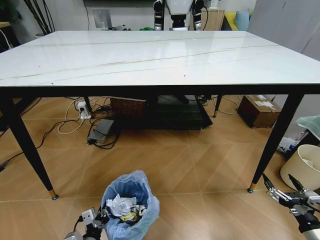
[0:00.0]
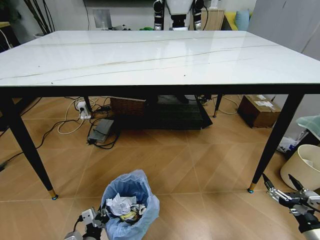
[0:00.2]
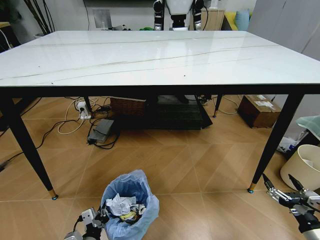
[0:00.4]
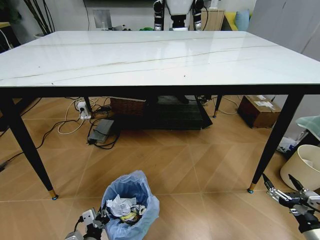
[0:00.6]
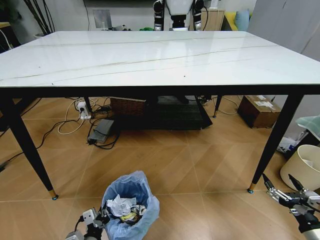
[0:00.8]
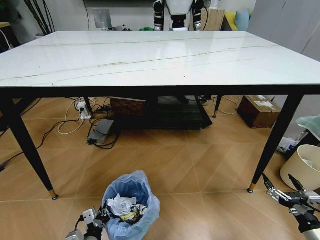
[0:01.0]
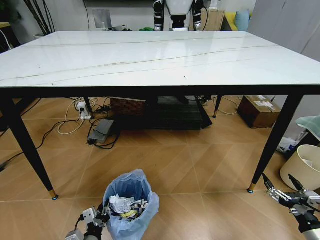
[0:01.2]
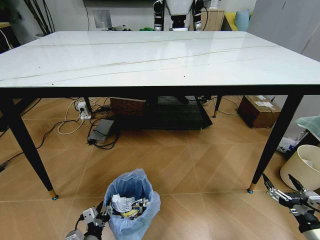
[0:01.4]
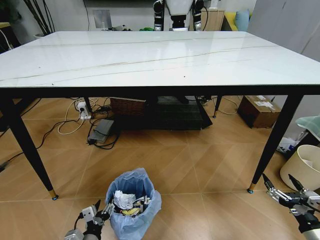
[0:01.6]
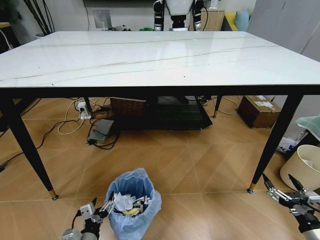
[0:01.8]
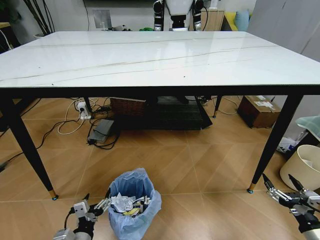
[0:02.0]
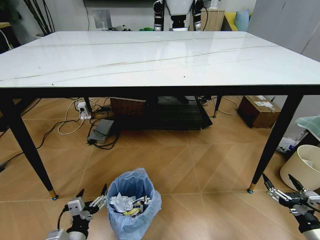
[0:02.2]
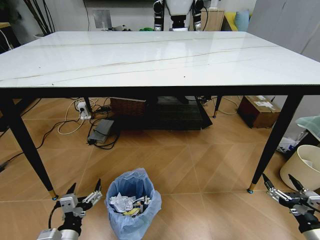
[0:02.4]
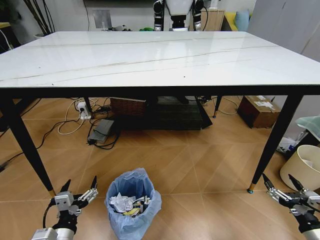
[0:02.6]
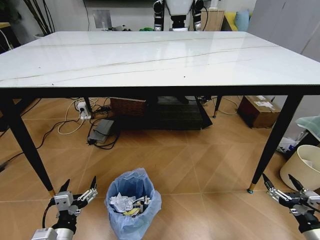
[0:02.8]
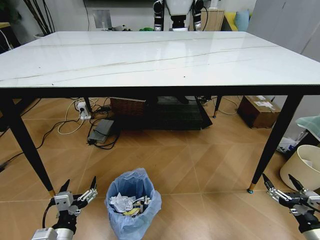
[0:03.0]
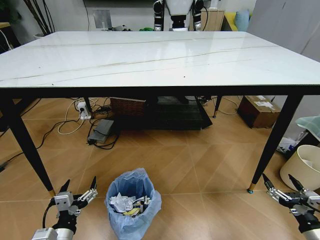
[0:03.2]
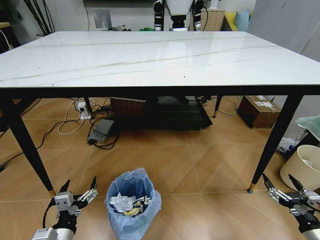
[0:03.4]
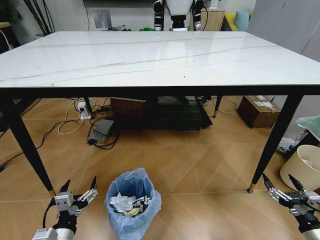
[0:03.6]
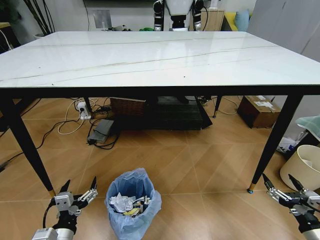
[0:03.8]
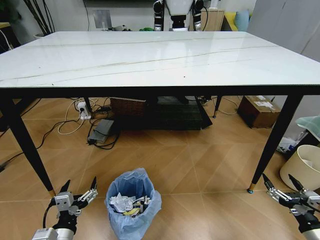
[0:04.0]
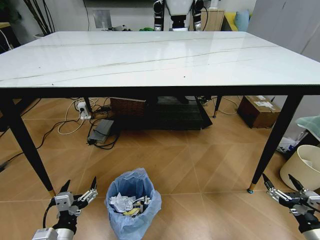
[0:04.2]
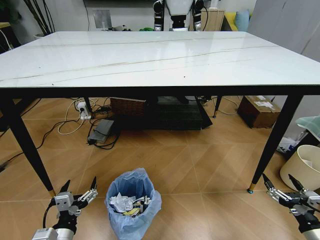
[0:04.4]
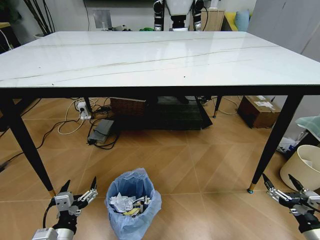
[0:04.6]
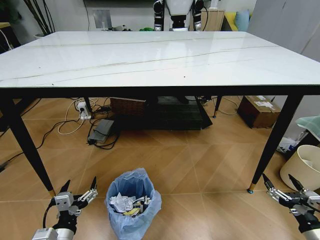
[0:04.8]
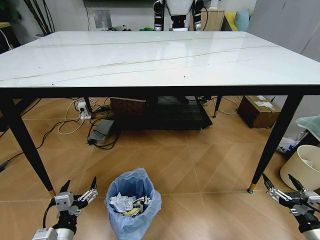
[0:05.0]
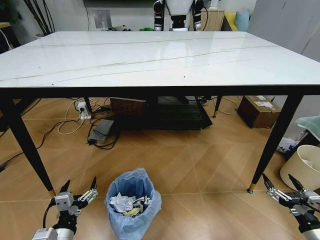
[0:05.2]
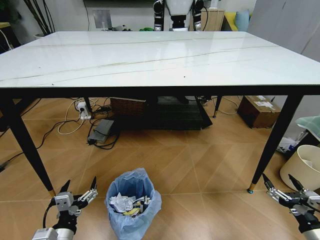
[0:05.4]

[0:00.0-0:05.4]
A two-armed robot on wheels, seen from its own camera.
Task of the whole recording: Pick up the trash bin and place the trash from the table into it.
0:00.0 to 0:01.4: The left gripper opens its fingers.
0:01.4 to 0:02.8: The left gripper goes some 10 cm upward, and opens its fingers.
0:02.8 to 0:05.4: The two grippers keep their place.

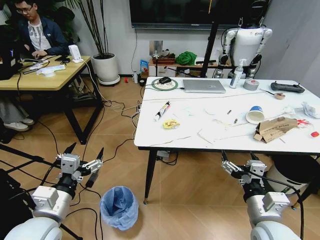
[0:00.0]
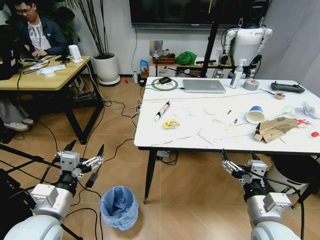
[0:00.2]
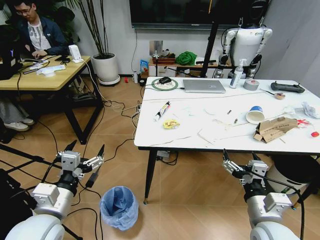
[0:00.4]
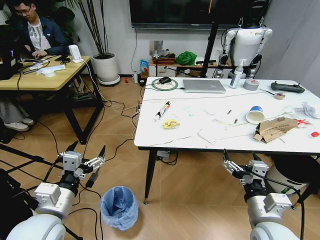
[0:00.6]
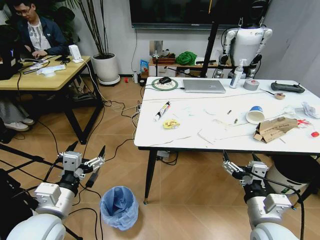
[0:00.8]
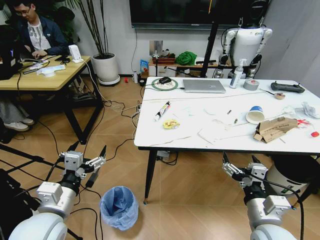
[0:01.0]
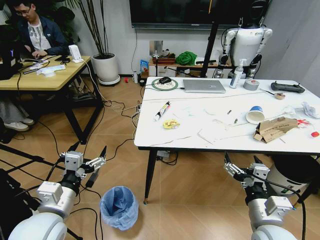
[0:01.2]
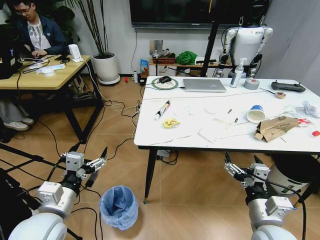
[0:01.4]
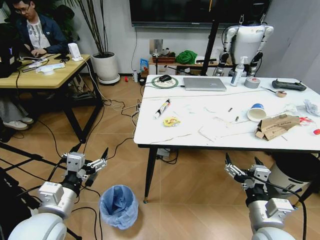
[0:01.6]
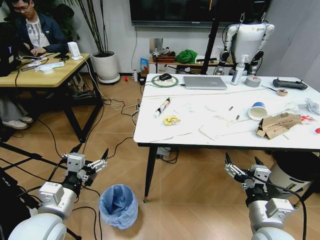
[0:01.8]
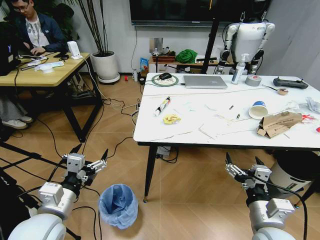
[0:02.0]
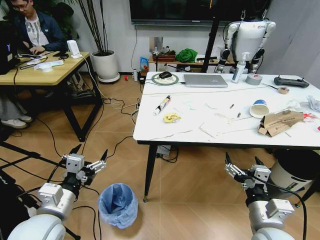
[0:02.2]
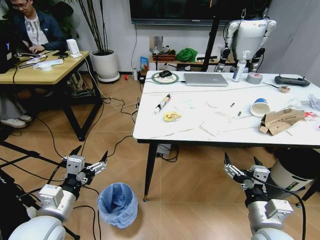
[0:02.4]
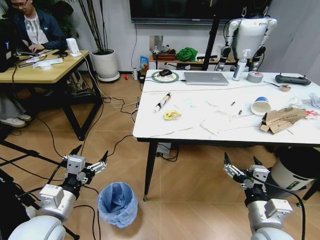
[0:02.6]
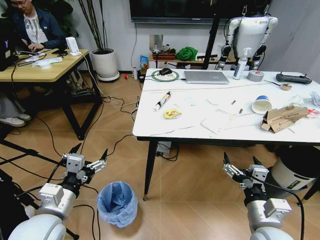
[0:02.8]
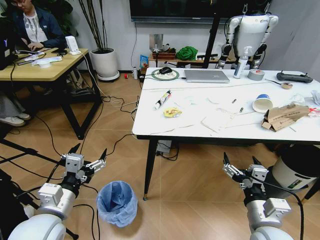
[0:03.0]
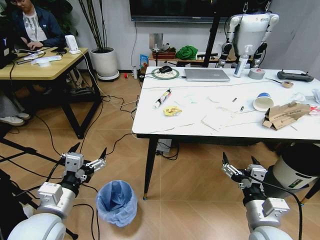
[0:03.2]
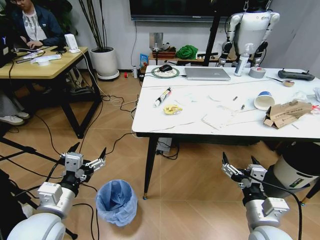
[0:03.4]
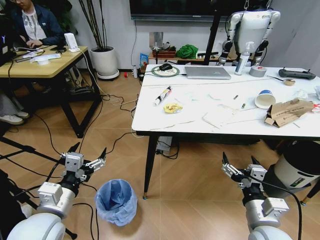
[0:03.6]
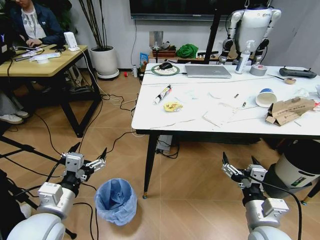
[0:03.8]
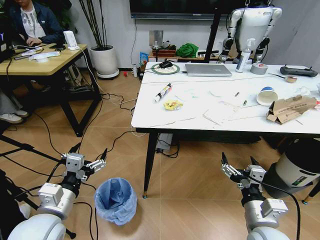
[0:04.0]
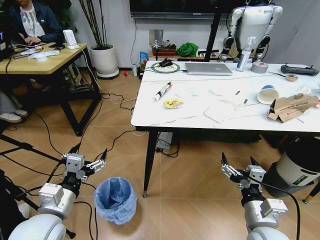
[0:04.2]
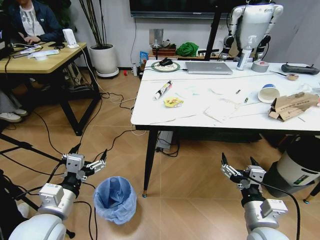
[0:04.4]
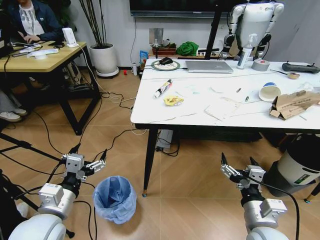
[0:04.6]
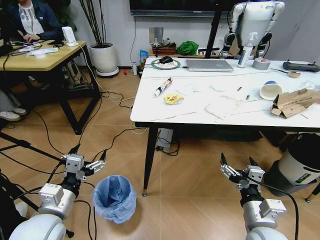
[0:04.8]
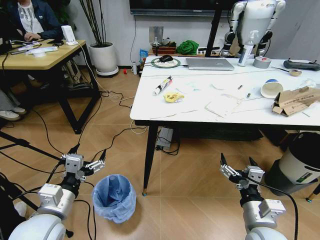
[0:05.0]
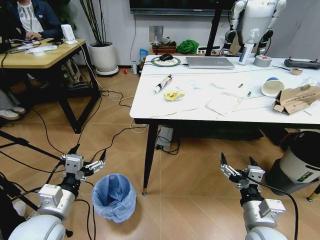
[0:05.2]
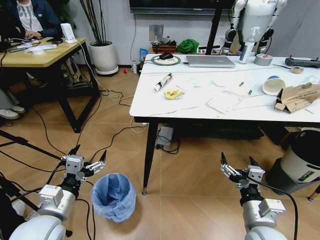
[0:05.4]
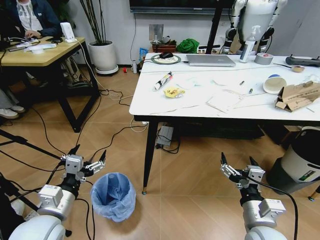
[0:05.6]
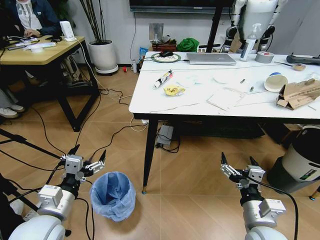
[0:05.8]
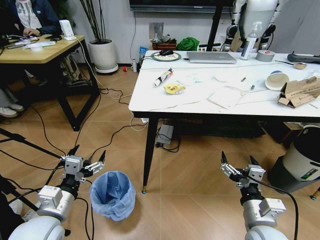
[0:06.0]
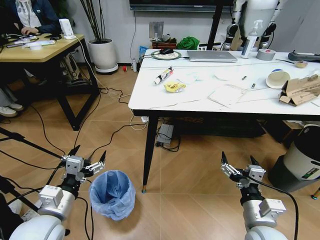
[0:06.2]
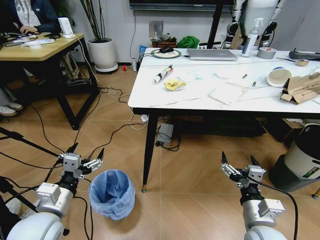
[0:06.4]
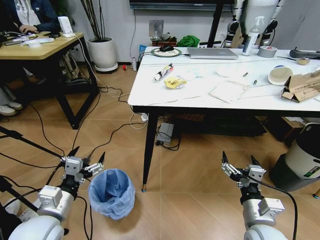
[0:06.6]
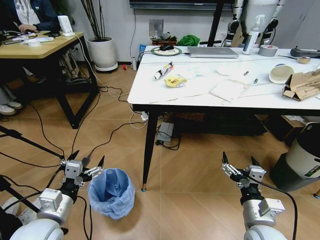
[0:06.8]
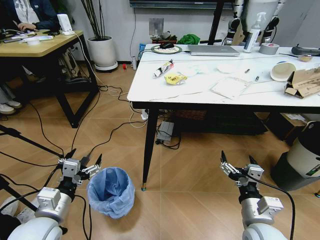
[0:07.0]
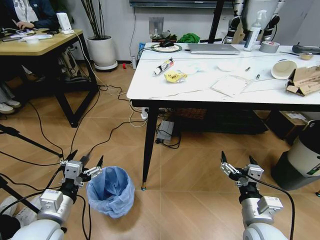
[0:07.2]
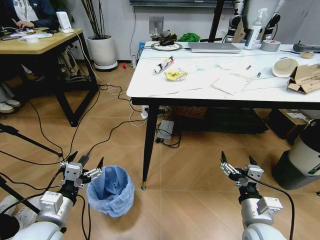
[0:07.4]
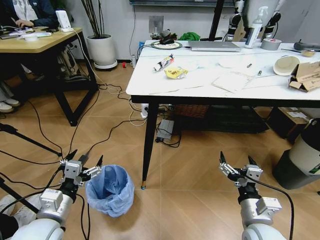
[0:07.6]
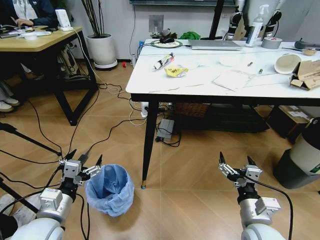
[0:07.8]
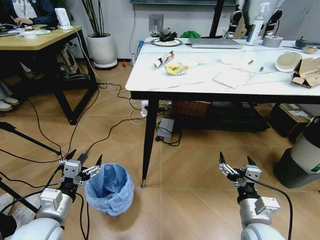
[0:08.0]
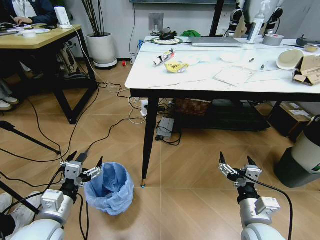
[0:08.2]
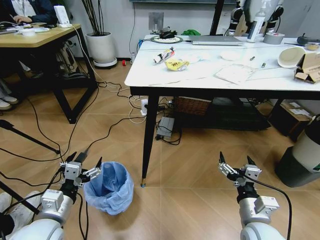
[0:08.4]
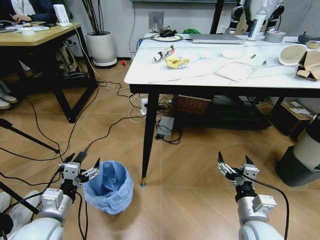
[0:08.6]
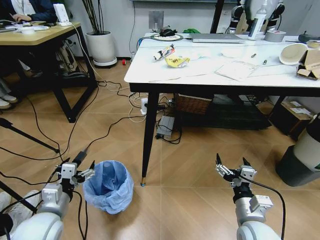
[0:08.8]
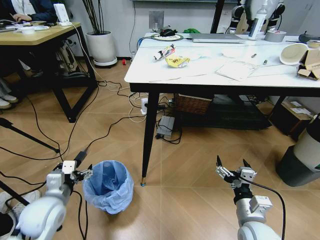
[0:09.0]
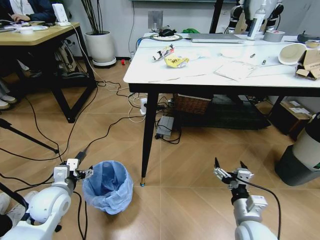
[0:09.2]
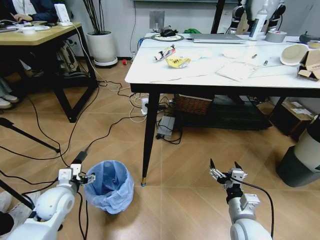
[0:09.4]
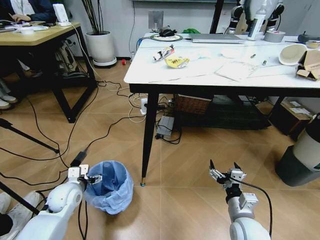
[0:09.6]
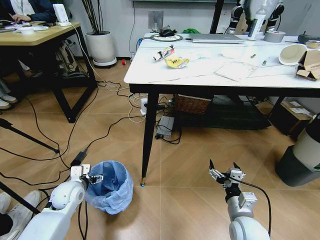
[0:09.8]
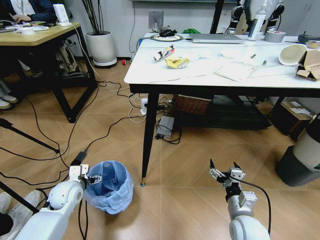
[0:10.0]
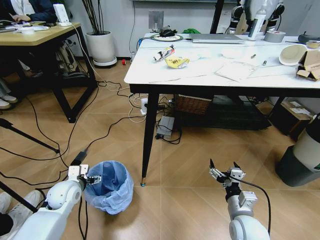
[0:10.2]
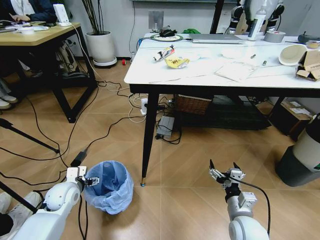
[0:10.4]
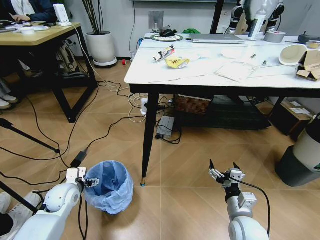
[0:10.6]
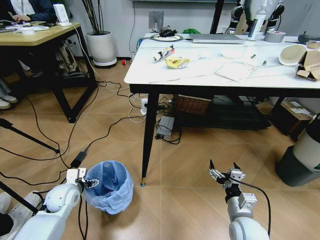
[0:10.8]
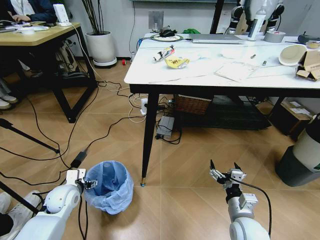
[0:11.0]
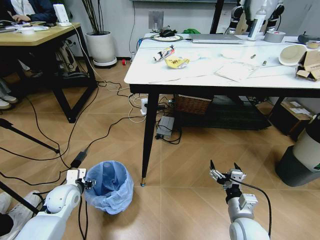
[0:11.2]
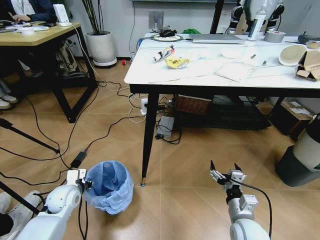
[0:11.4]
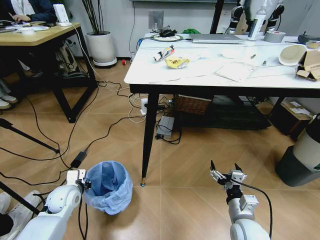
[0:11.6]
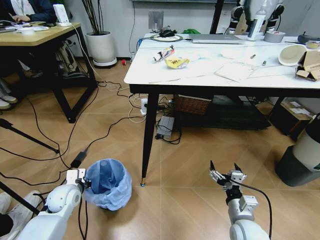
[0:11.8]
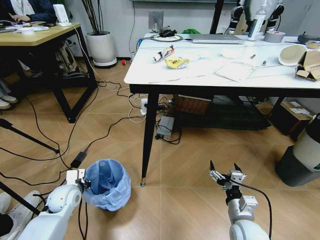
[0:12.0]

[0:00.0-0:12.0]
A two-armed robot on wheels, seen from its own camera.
Task of the whole recording: Pick up the trash bin and place the trash from the table into it.
0:07.6 to 0:09.0: The left gripper shifts some 5 cm forward.
0:09.0 to 0:10.4: The right gripper shifts by approximately 5 cm. The left gripper goes roughly 10 cm forward and downward.
0:10.4 to 0:12.0: The left gripper closes up.

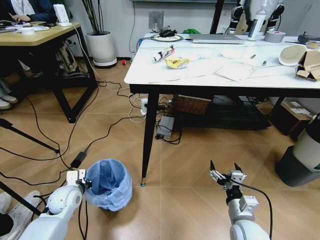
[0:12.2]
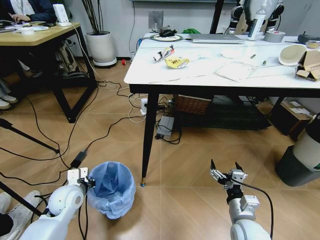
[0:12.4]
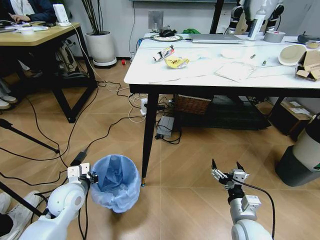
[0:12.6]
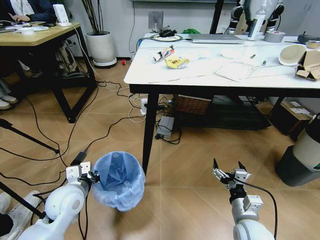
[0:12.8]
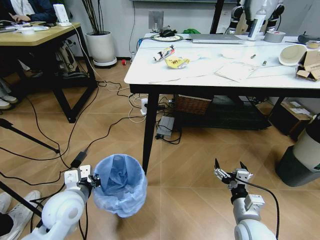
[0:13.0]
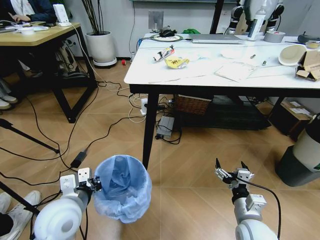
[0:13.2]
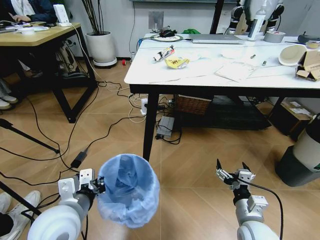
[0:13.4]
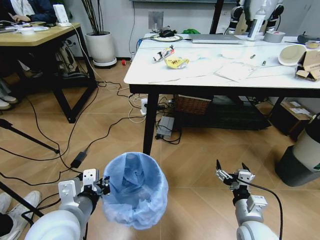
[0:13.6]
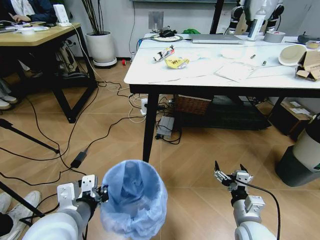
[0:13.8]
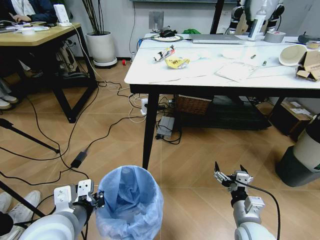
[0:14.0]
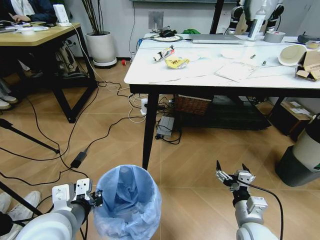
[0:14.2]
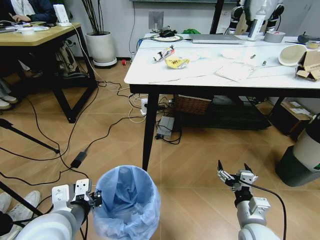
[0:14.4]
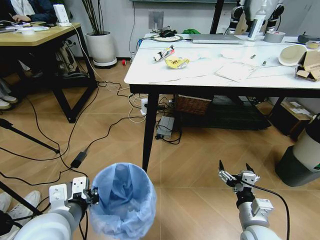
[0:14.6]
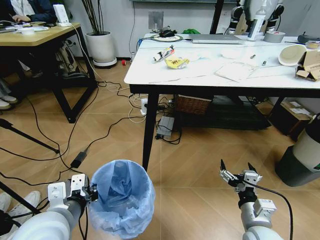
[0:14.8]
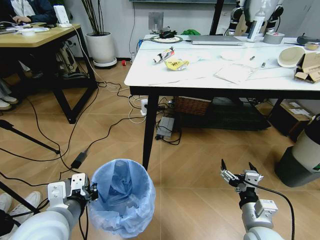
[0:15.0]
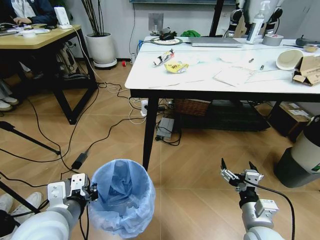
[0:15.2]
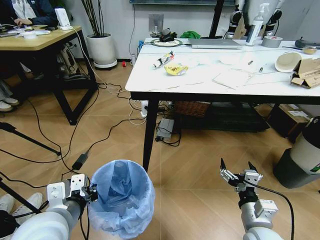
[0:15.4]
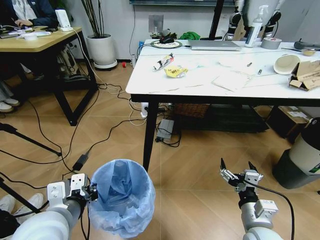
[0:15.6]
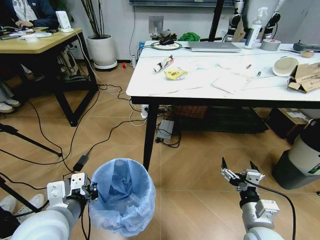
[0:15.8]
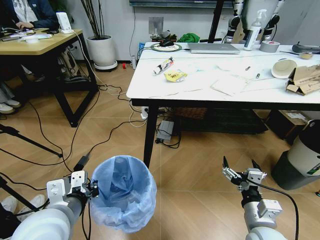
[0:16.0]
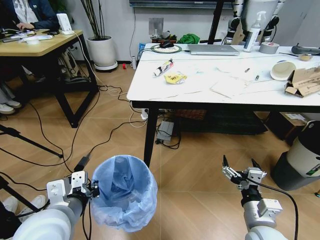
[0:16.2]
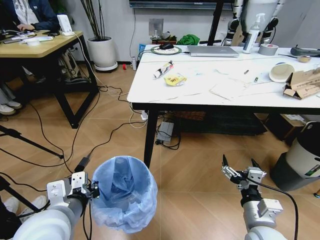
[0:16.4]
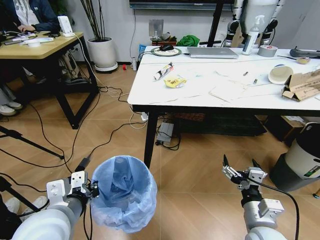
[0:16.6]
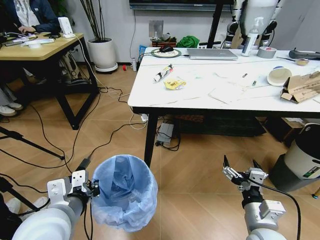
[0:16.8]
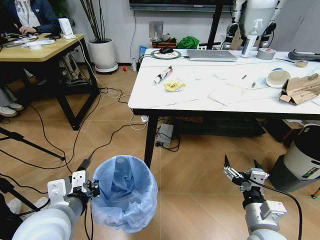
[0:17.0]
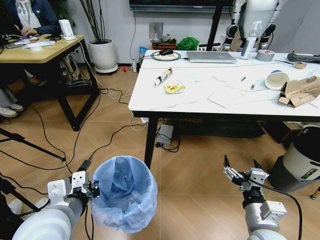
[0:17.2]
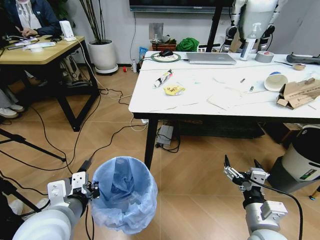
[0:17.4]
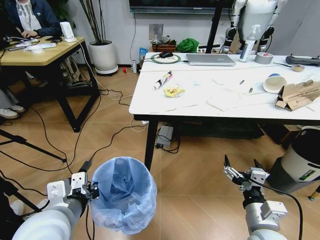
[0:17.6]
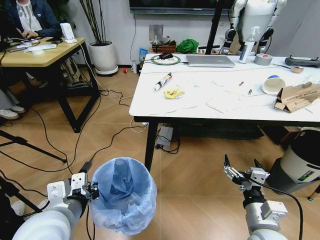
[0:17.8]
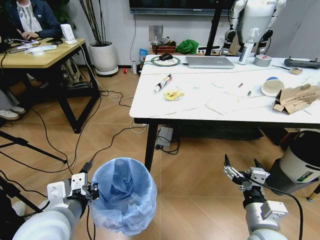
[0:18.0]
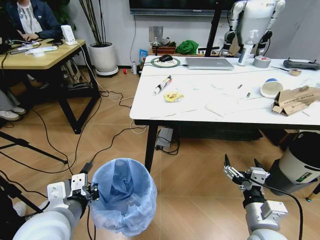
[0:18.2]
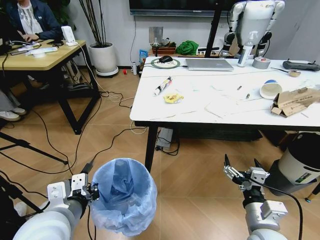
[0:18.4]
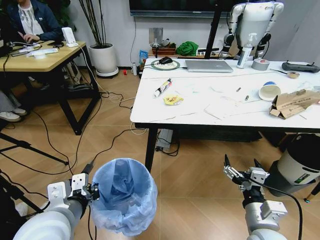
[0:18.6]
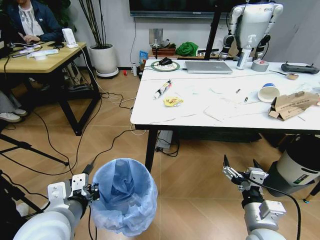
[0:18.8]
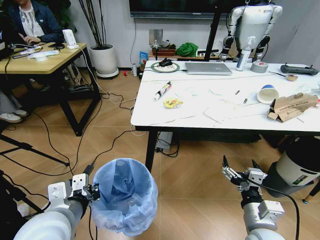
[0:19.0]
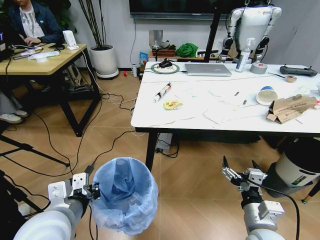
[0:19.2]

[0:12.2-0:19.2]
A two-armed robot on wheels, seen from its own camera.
Task of the whole recording: Pick up the trash bin and place the trash from the table into it.
0:12.2 to 0:13.6: The left gripper shifts approximately 25 cm upward, backward and to the right.
0:13.6 to 0:15.0: There are only small adjustments of the grippers.
